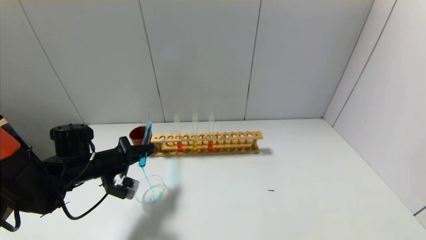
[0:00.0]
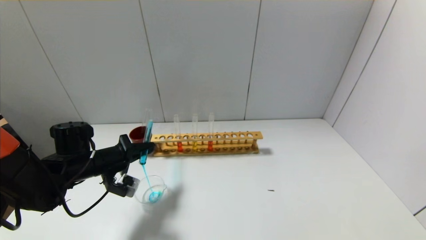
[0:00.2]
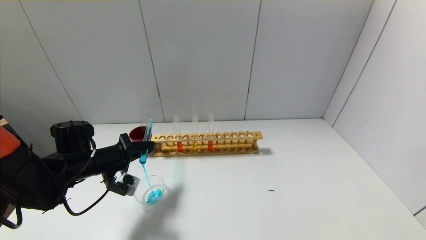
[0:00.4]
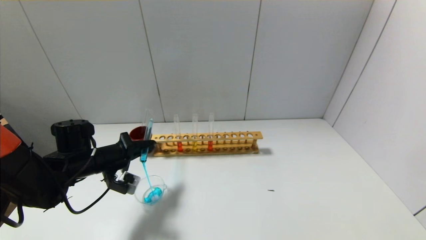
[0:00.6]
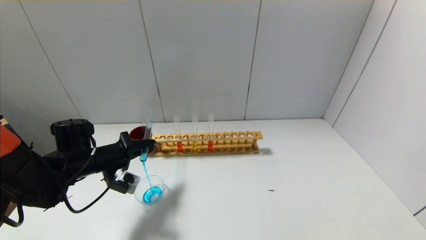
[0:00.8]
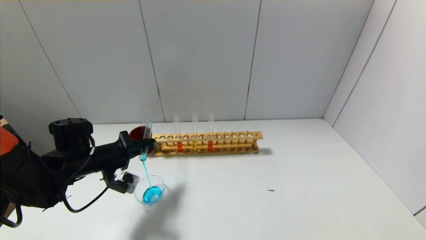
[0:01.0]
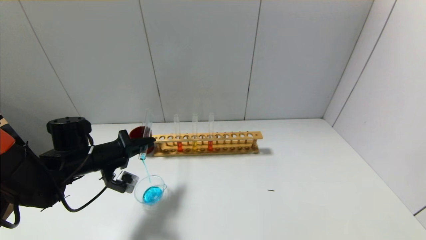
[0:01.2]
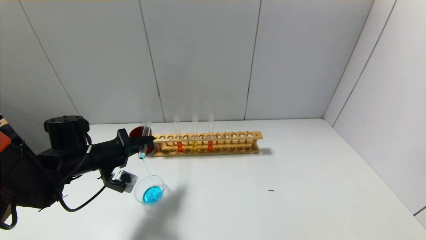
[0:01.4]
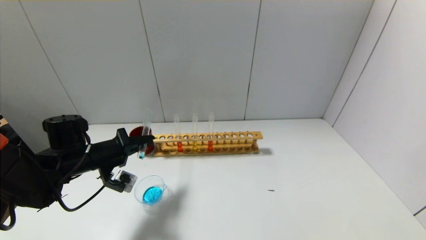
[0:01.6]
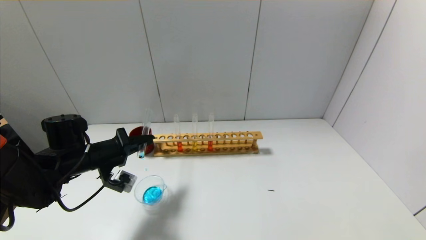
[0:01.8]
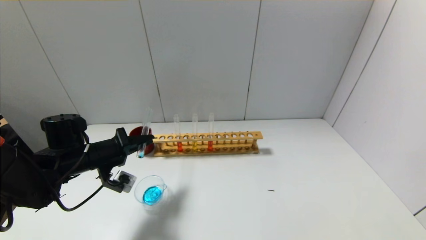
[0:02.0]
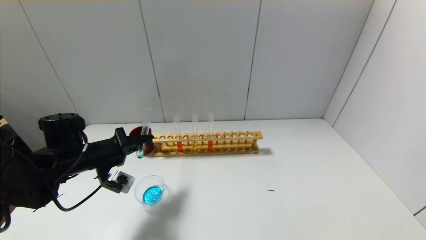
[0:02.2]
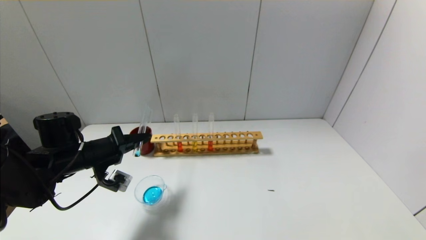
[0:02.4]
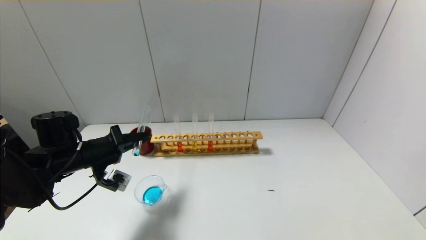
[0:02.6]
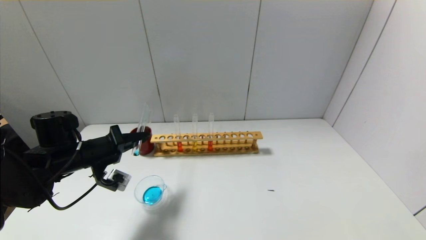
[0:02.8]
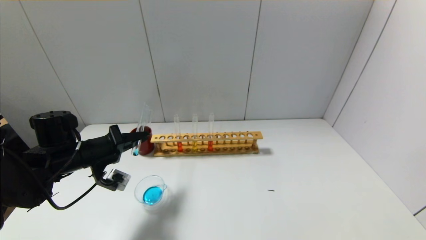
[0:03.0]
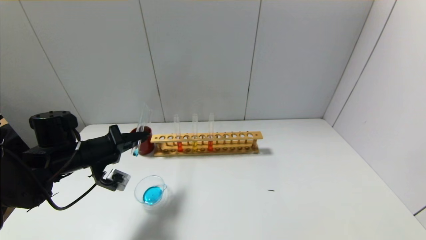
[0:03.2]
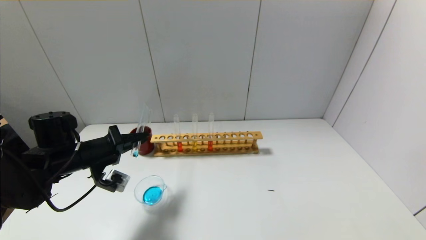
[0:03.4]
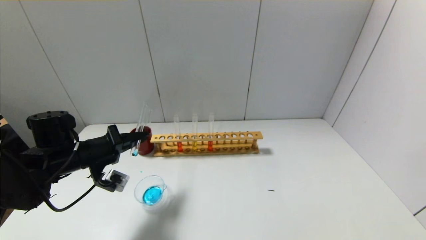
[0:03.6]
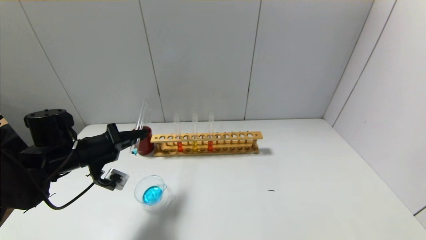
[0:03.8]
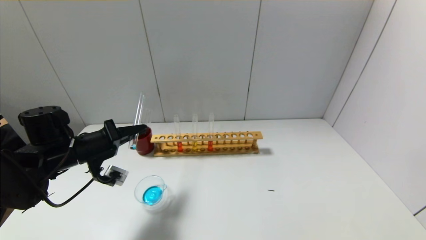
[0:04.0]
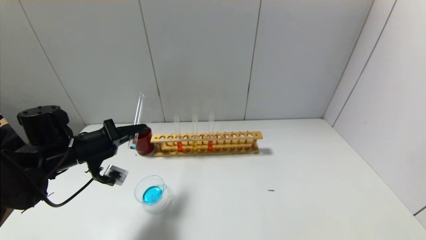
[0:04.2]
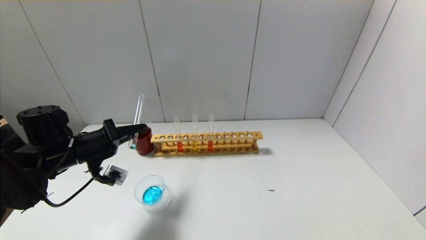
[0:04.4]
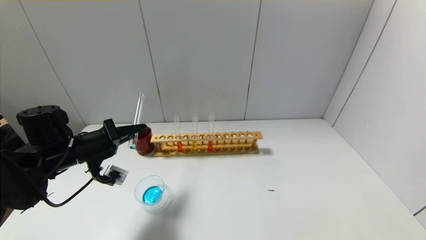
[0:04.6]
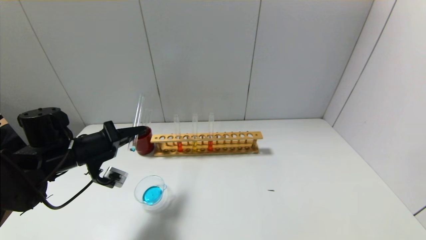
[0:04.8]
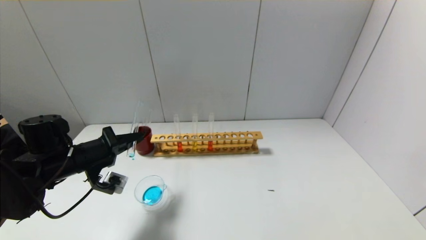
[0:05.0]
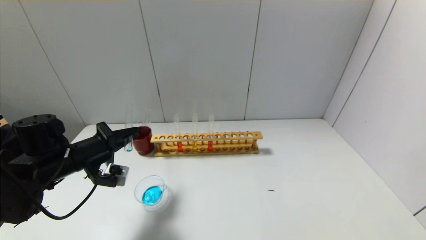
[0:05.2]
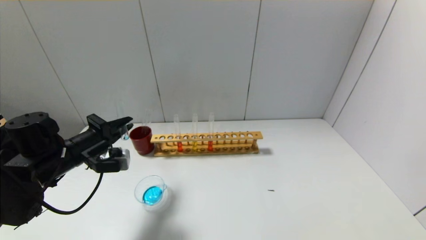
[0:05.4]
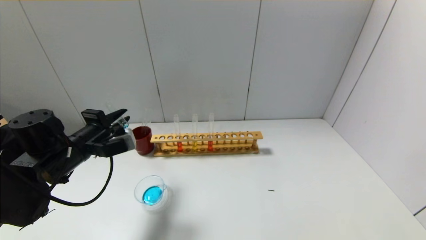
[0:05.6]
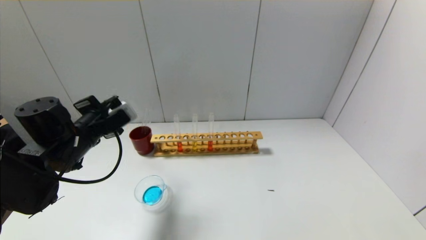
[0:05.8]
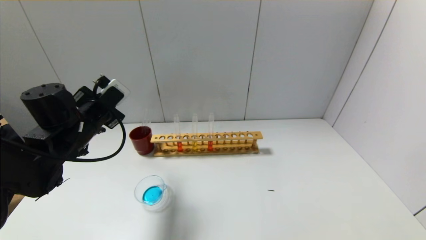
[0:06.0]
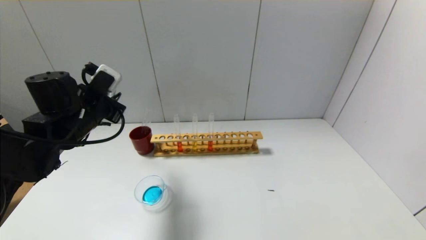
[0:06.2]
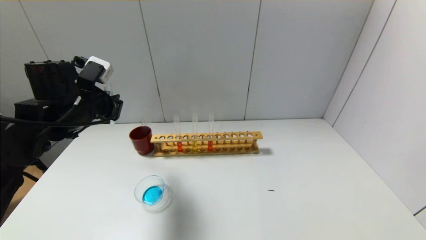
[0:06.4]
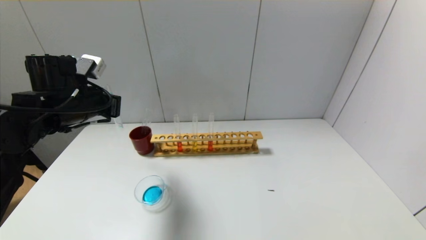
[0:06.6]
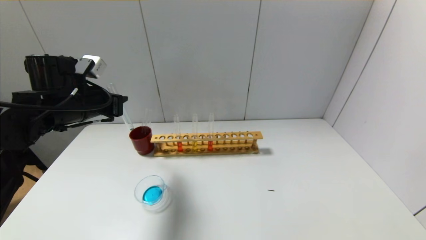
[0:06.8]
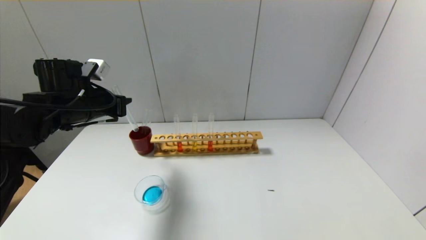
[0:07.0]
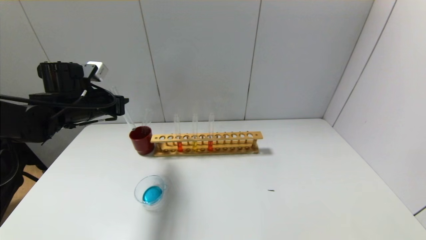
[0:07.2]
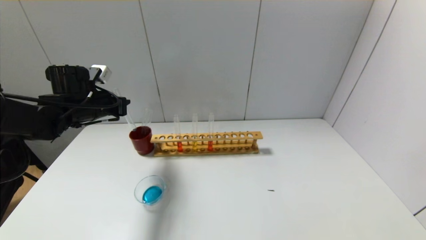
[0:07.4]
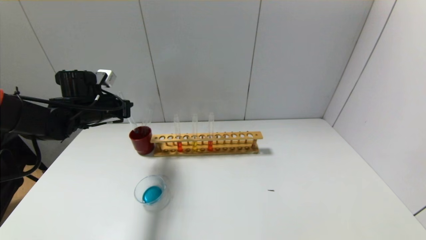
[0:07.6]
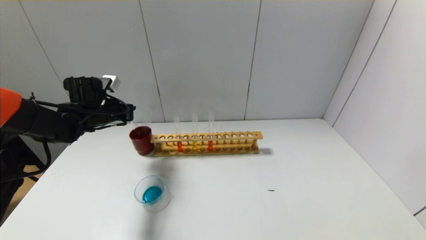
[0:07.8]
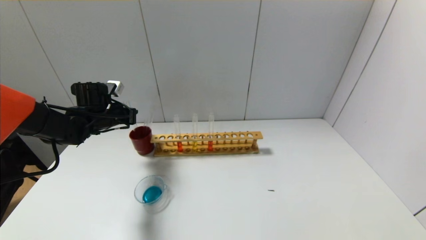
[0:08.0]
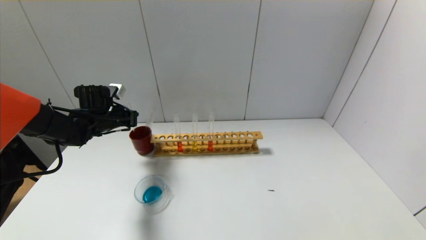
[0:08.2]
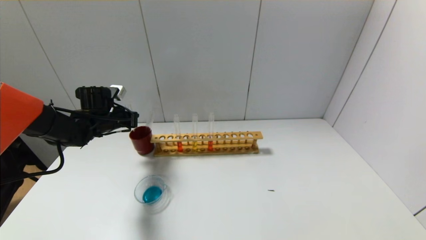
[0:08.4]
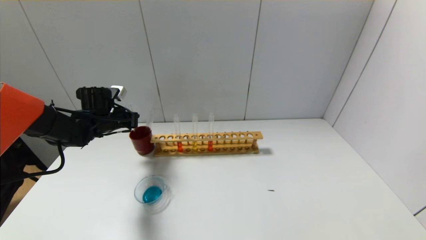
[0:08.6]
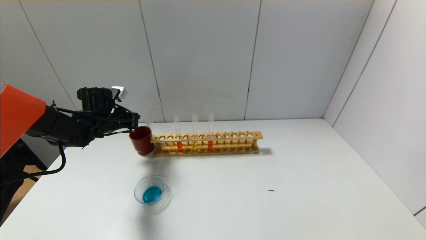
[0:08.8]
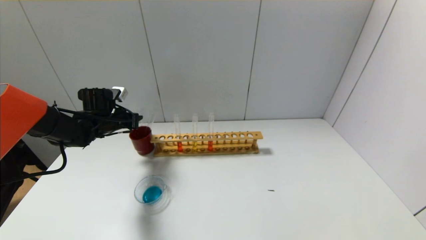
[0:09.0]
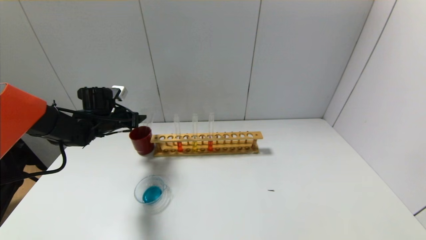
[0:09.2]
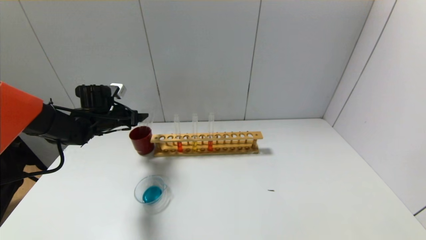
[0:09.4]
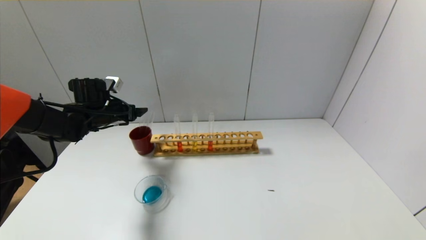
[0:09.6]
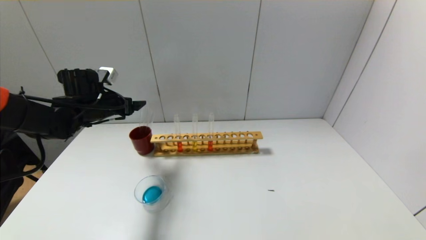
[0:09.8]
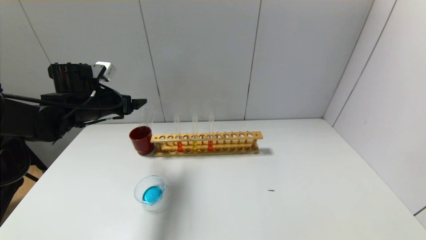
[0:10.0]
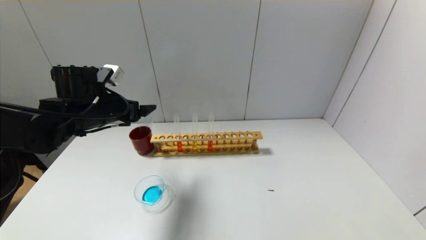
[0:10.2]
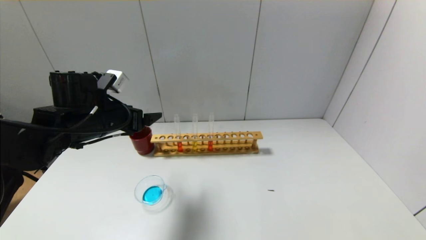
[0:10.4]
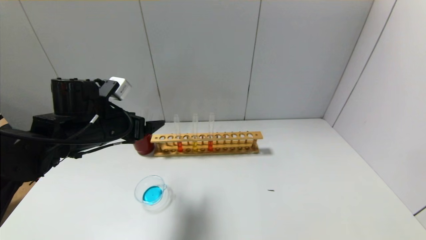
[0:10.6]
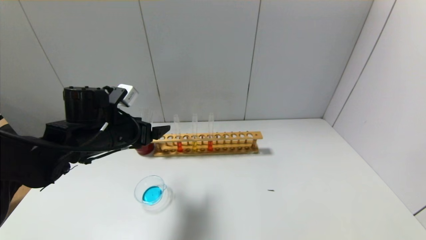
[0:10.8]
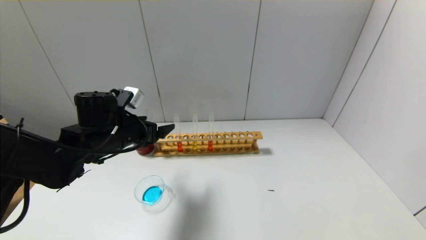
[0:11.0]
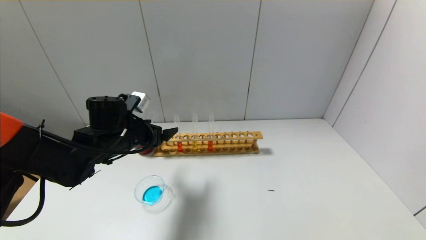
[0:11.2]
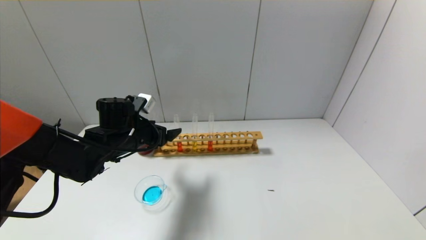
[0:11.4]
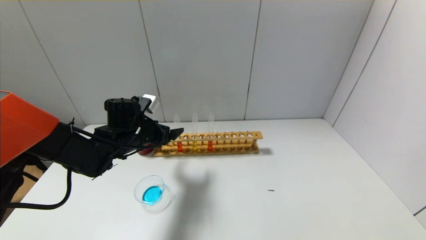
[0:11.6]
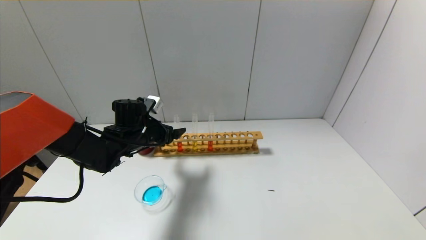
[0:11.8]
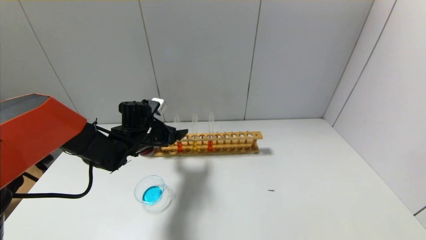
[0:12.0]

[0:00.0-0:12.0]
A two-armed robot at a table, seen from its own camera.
Step, 0:00.0 to 0:05.2: Pour the blue reagent into the graduated cylinder with the left gripper.
Step, 0:05.4 to 0:09.2: Place the test tube into the brown cup with the left gripper.
0:00.0 to 0:03.0: The grippers move only a little.
0:03.0 to 0:04.4: There are only small adjustments of the grippers.
0:04.4 to 0:06.0: The left gripper changes place by some 5 cm.
0:06.0 to 0:07.6: The left gripper goes roughly 10 cm forward.
0:07.6 to 0:09.0: The left gripper heads downward, covering about 5 cm.
0:09.0 to 0:10.4: The left gripper moves backward, upward and to the right, approximately 15 cm, and opens.
0:10.4 to 0:12.0: The left gripper travels downward and forward by roughly 10 cm.

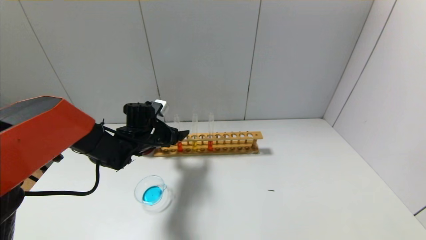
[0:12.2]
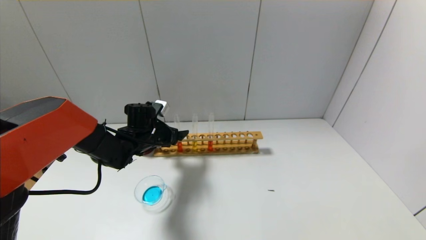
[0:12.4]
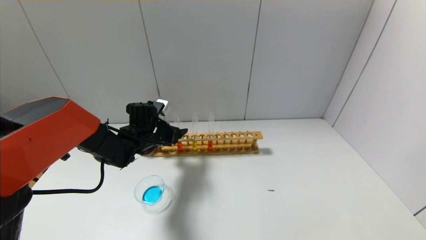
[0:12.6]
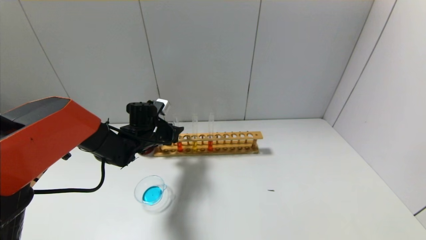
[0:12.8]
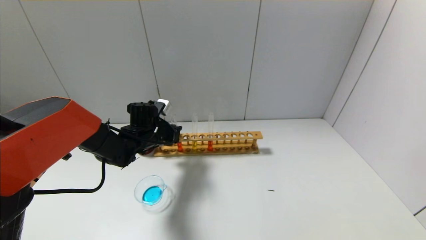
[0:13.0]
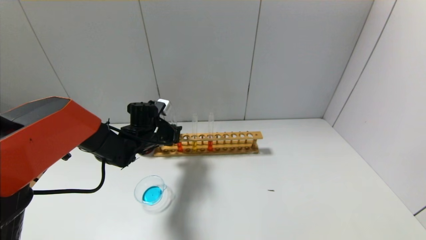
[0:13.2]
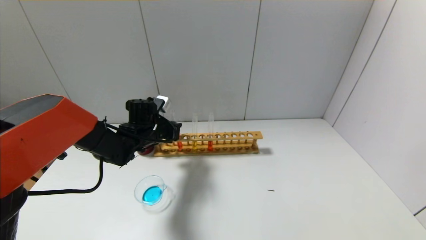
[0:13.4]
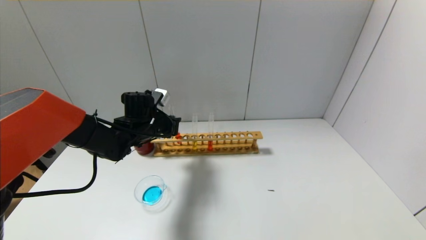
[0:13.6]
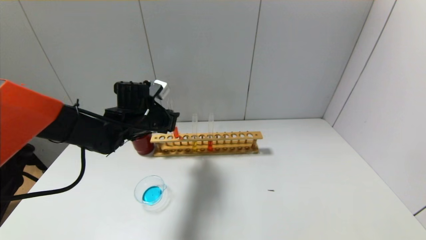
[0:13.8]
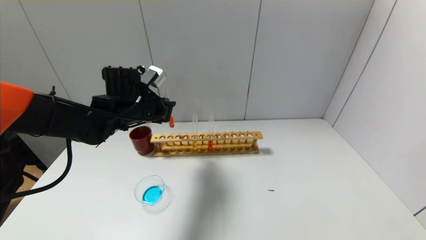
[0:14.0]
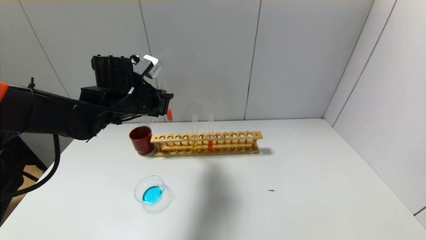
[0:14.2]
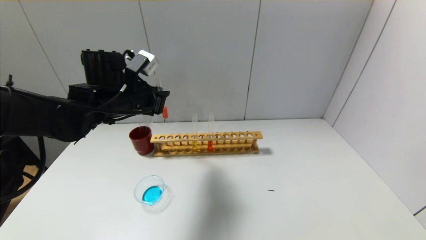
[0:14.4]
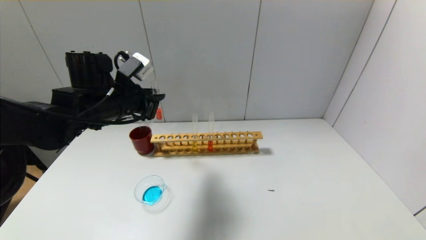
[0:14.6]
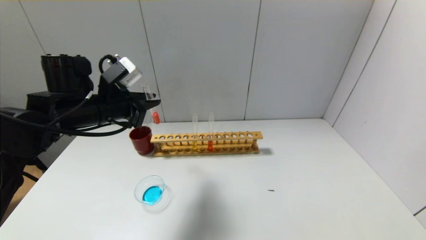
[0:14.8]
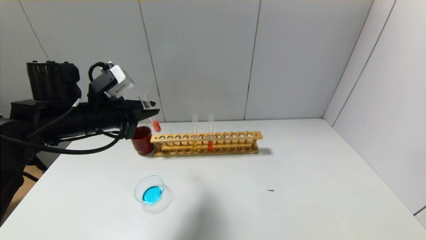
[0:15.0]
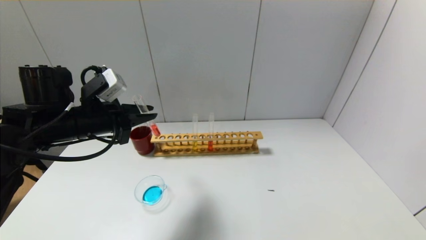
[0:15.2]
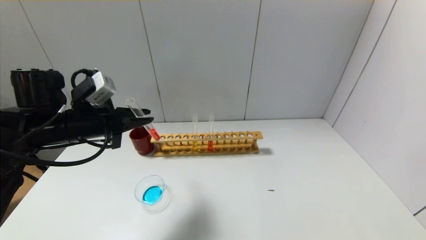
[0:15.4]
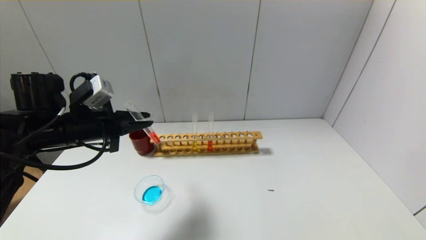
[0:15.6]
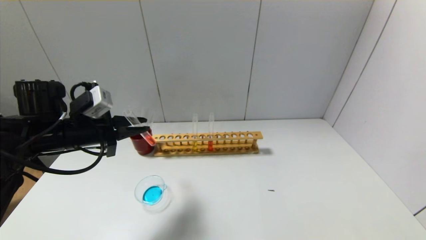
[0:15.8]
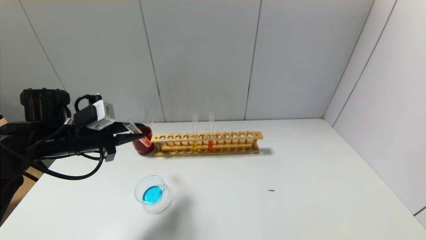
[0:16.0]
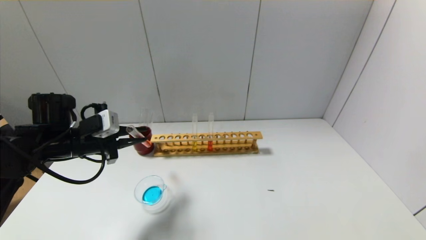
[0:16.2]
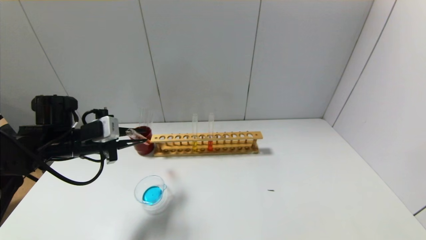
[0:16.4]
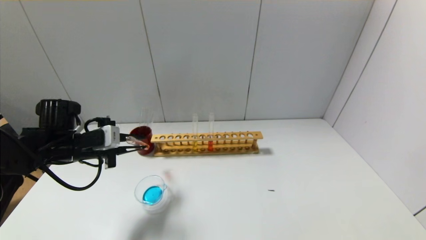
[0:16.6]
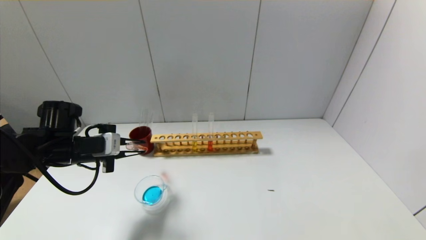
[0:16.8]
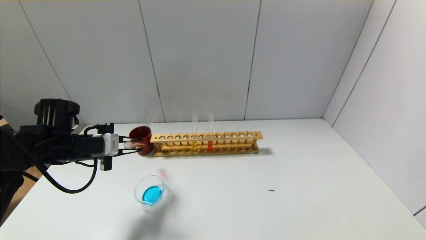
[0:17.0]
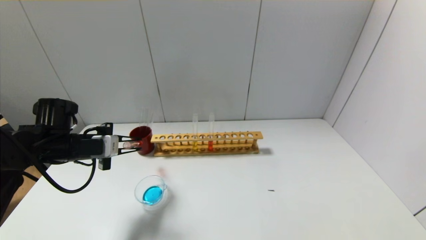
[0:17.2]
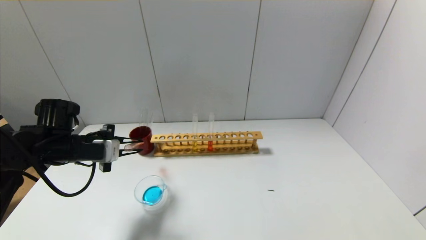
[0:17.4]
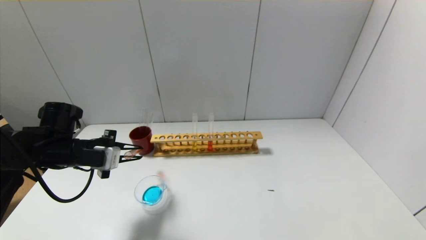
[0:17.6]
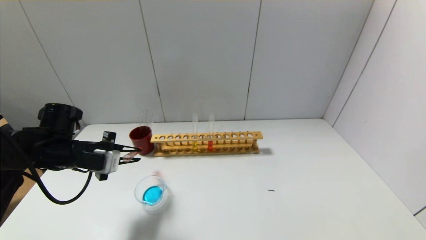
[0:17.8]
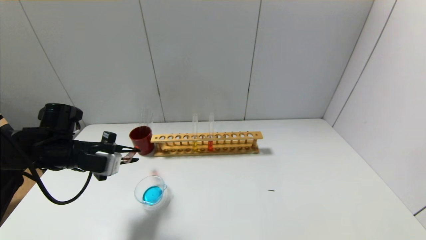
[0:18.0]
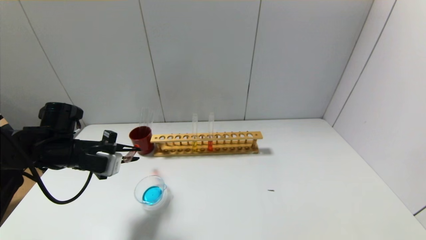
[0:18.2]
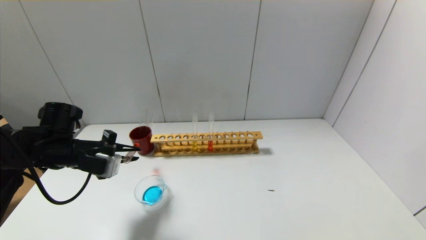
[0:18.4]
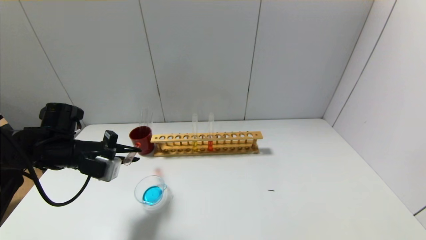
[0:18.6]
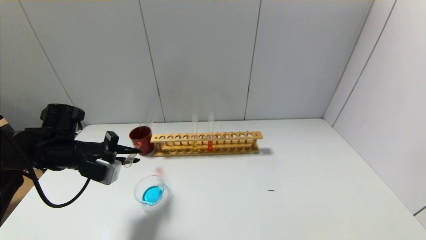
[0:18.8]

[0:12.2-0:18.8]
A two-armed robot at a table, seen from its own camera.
0:12.2 to 0:13.8: The left gripper heads upward, covering about 5 cm, and closes up.
0:13.8 to 0:15.4: The left gripper moves backward and to the left, some 15 cm.
0:15.4 to 0:17.2: The left gripper moves downward, approximately 5 cm.
0:17.2 to 0:18.8: There are only small adjustments of the grippers.
